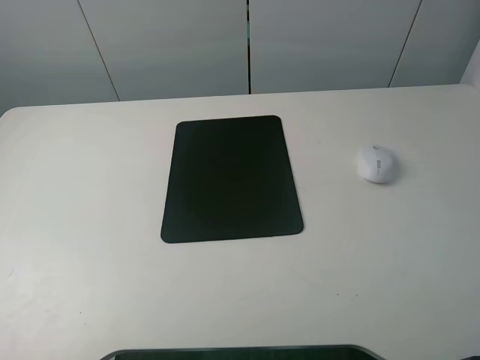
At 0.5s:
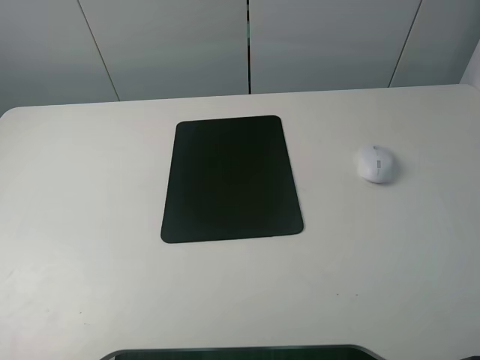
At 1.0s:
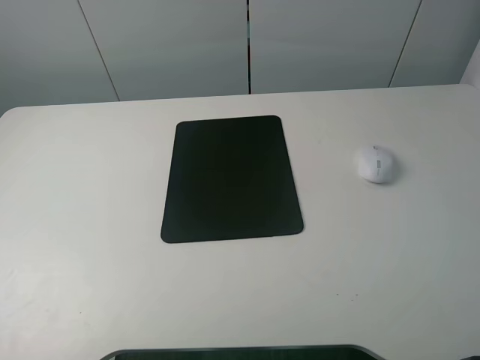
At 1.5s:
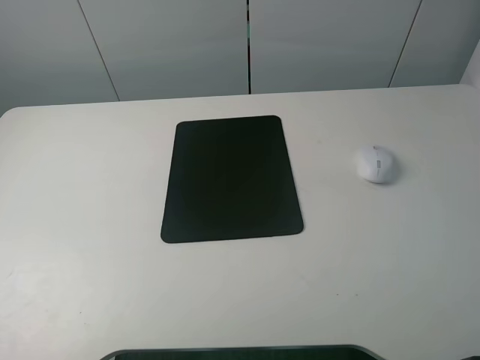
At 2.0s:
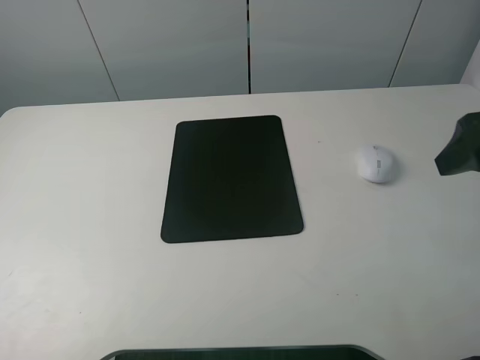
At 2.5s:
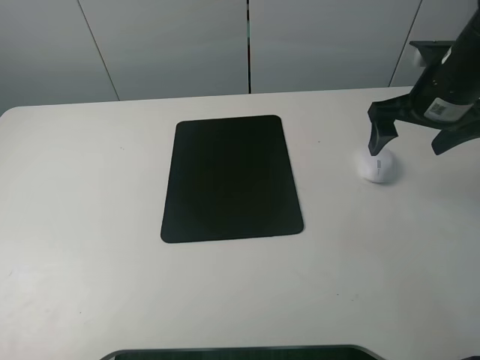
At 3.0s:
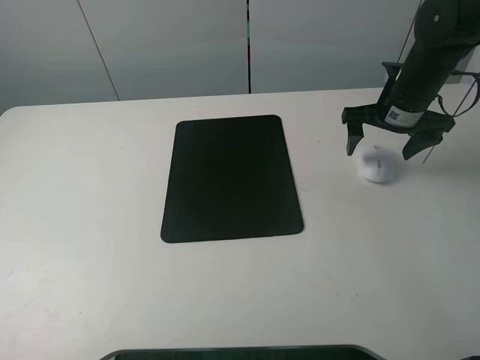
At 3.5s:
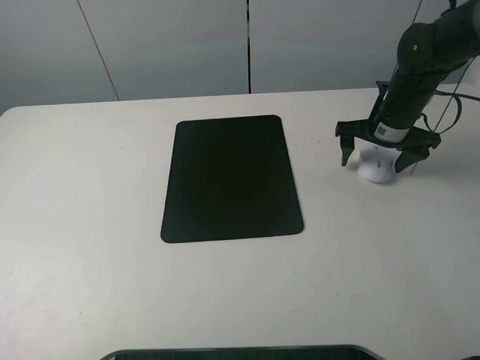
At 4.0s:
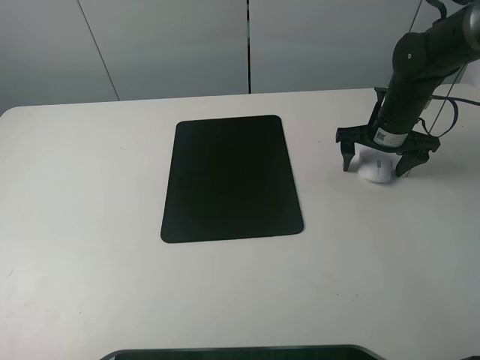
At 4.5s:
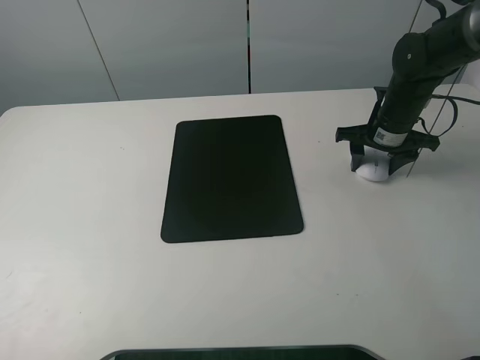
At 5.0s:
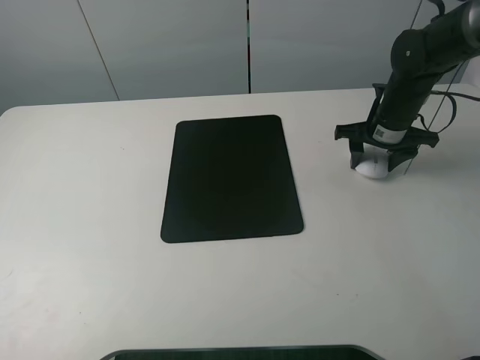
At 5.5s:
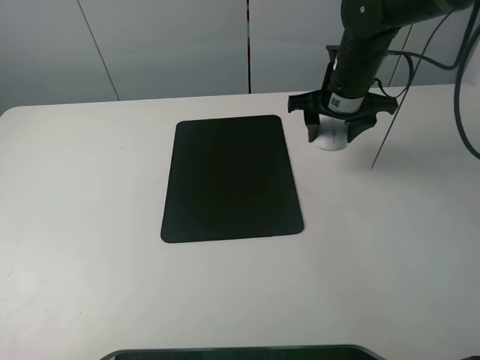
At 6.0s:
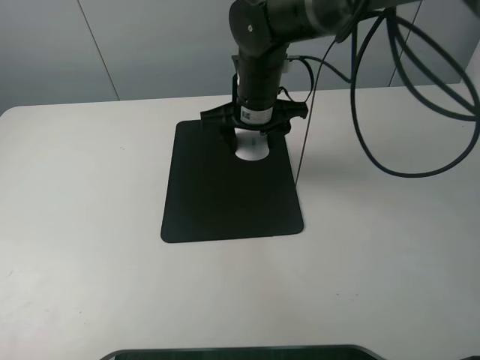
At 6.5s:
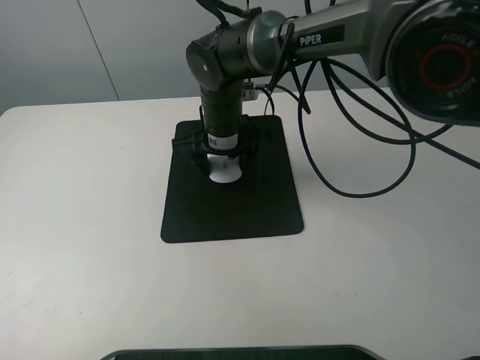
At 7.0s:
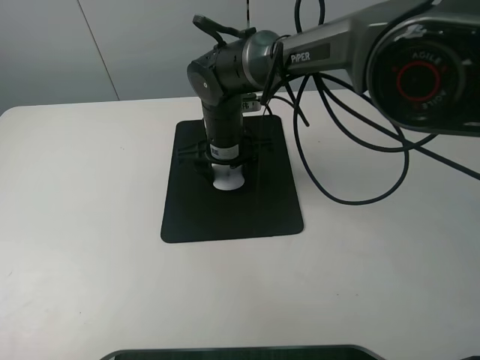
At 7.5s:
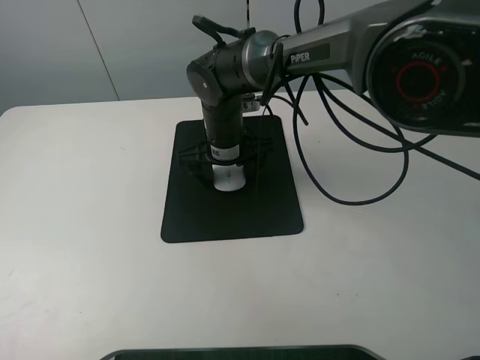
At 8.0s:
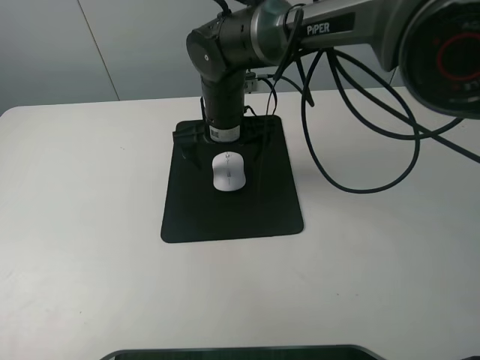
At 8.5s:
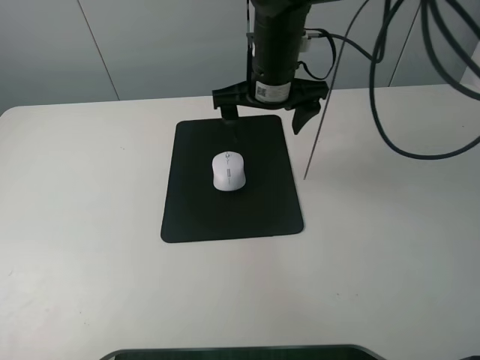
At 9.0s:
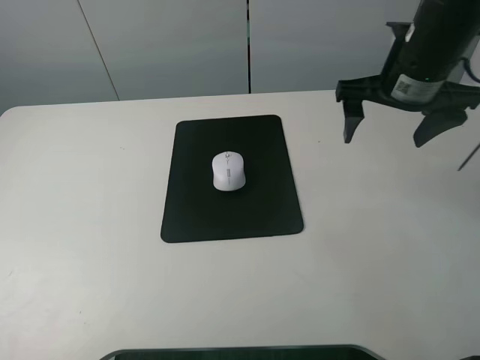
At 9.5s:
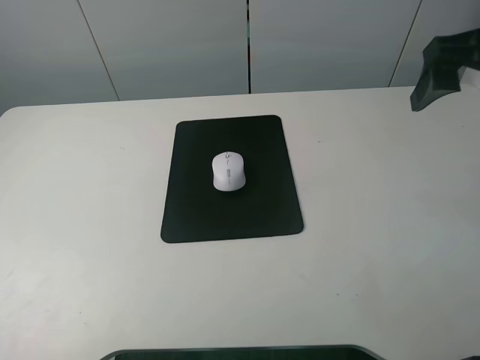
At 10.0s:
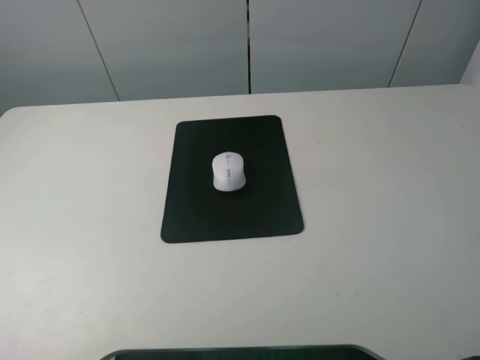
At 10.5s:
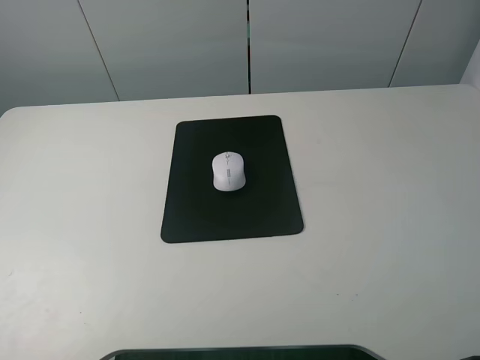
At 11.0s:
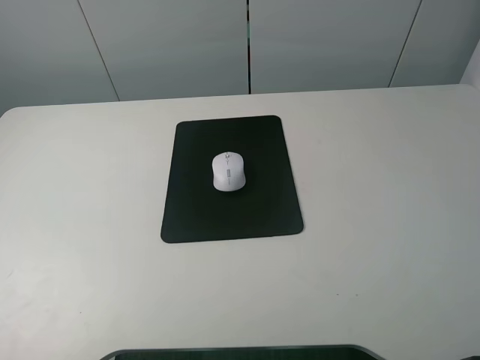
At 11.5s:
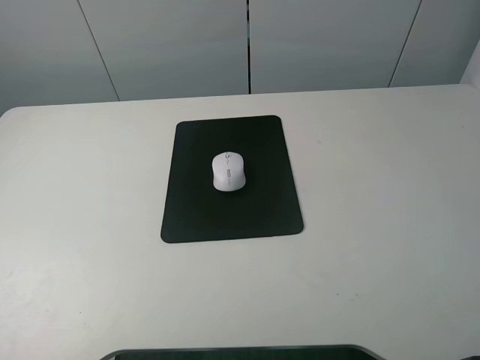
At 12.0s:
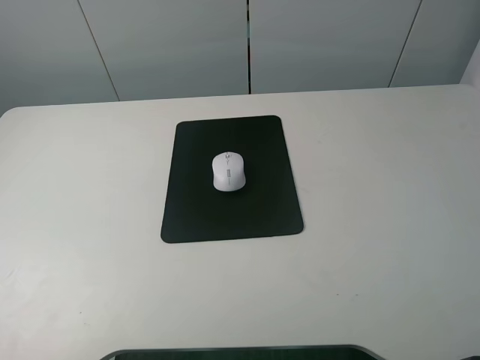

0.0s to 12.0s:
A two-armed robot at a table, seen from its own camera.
Step, 0.0s to 4.0s: Grasp the mouse with the right gripper.
Step, 4.5s to 7.5s: Place the mouse on the mouse mat with the right gripper.
0.0s to 2.0s: The right gripper shifts roughly 20 cm forward.
2.0s to 4.0s: The right gripper shifts some 25 cm forward and downward.
4.0s to 6.0s: The right gripper moves to the left, some 25 cm, and closes up.
6.0s to 8.0s: The right gripper opens up.
8.0s to 10.0s: The right gripper moves to the right, backward and upward, roughly 40 cm.
